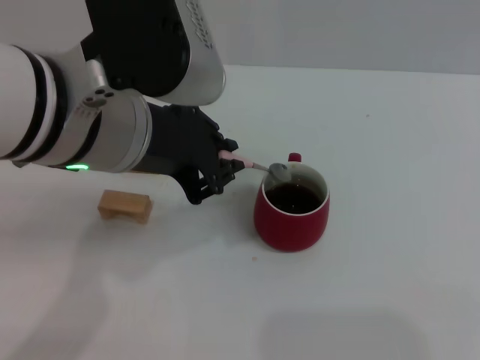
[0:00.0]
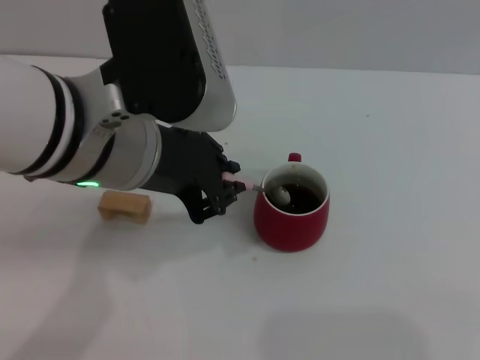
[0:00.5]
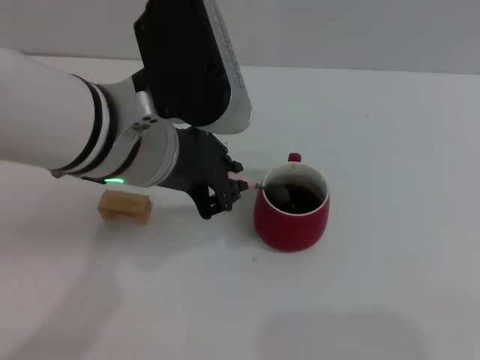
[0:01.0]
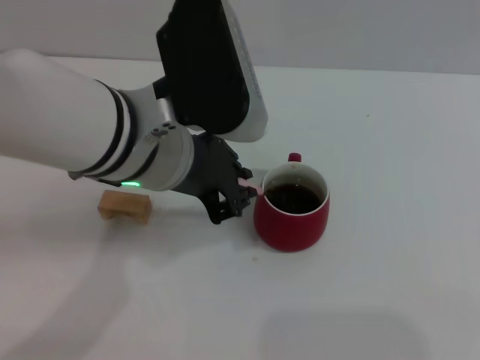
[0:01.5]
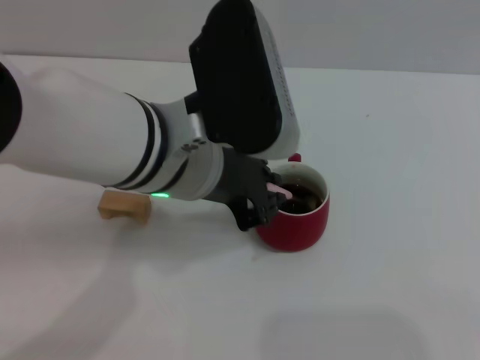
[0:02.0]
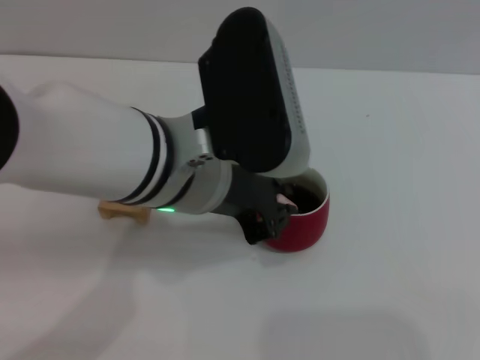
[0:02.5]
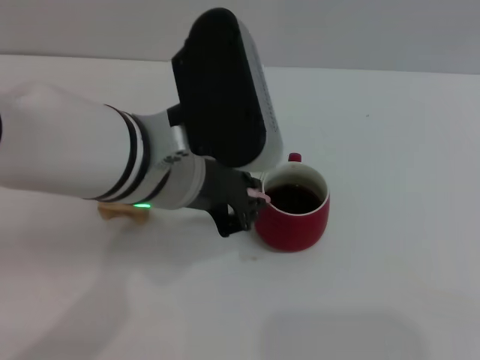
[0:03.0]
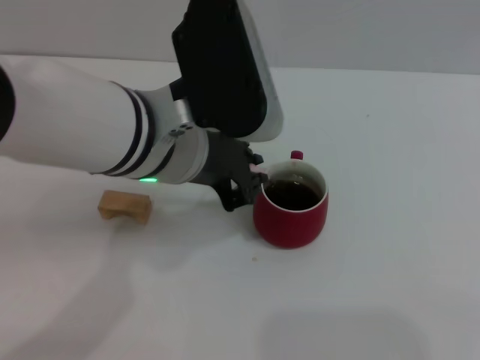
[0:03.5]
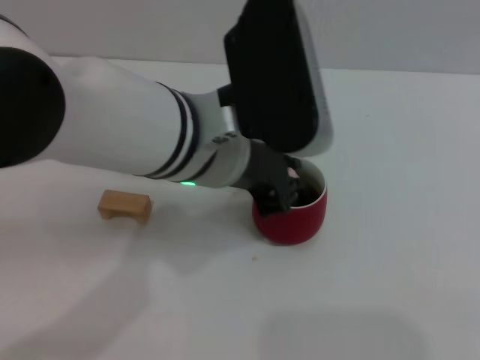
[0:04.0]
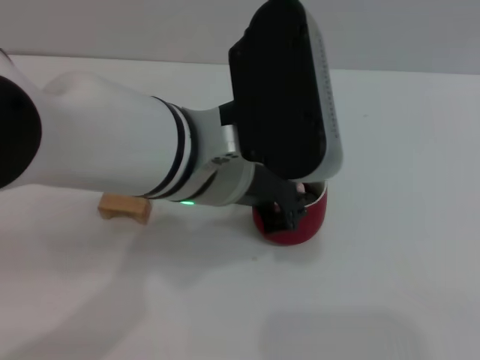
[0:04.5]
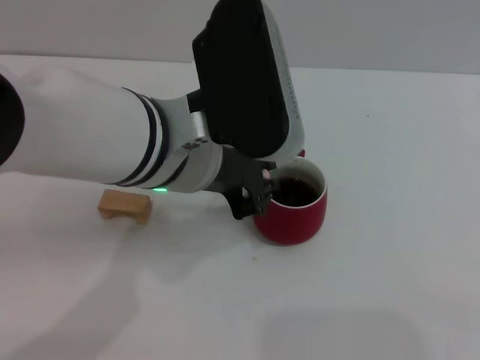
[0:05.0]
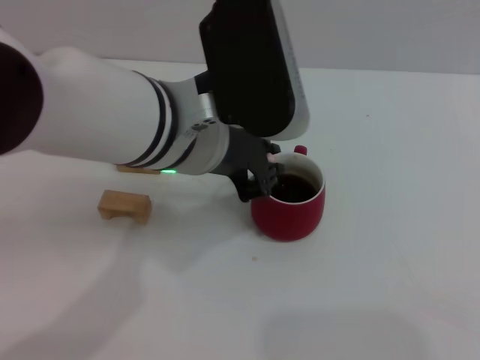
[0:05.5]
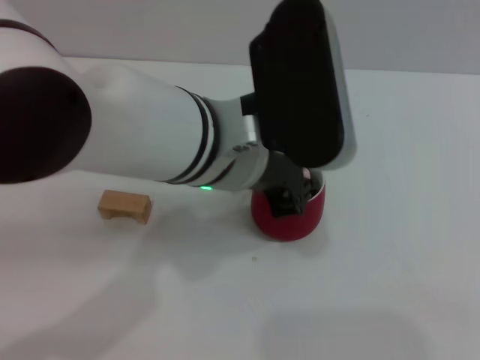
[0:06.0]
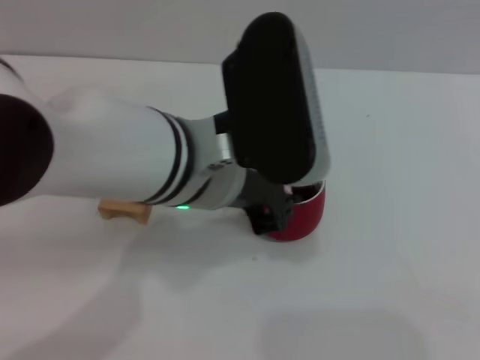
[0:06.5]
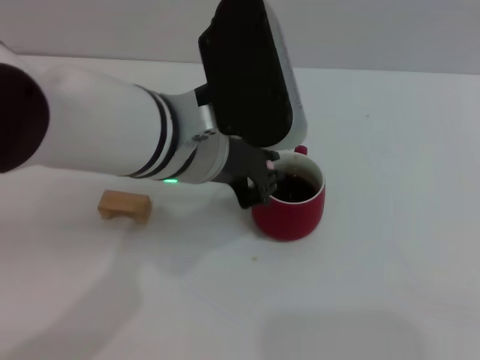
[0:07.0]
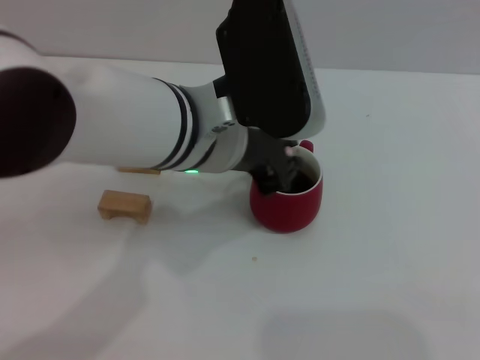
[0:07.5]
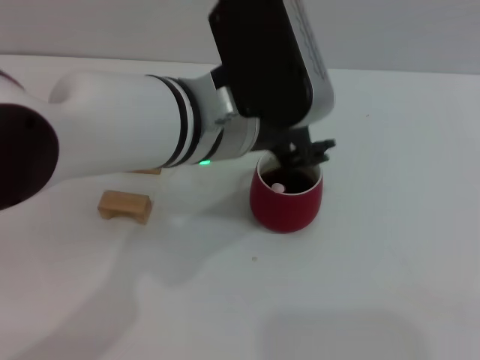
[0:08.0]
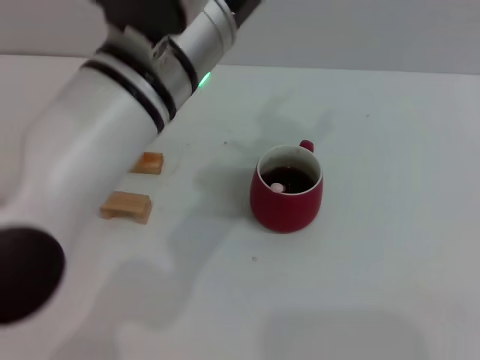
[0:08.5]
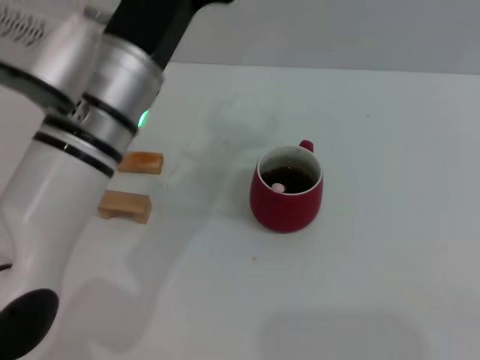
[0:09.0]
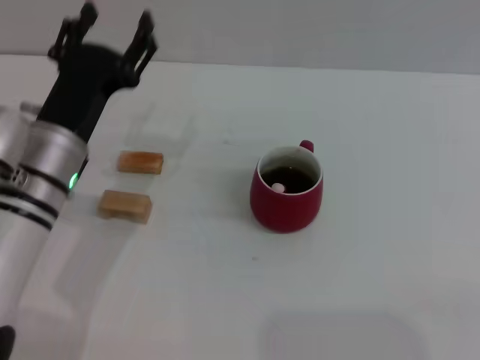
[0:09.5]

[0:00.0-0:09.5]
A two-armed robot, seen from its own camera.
Task of the whole recording: Move the red cup to the center, lift the pink spoon, stir it three times in the cup, and put the spoon into the cup.
Step, 0:00.0 to 0:08.0: Stir the coffee in the cup with the left gripper.
0:00.0 to 0:02.0: The left gripper shifts by some 5 cm.
0:02.0 to 0:07.5: There are only small adjustments of the grippers.
0:07.5 to 0:09.5: The left gripper moves to the left and downward, about 15 cm, and opens.

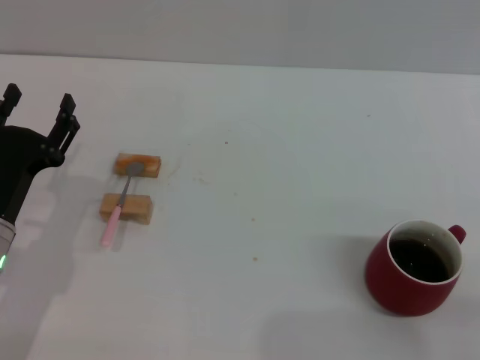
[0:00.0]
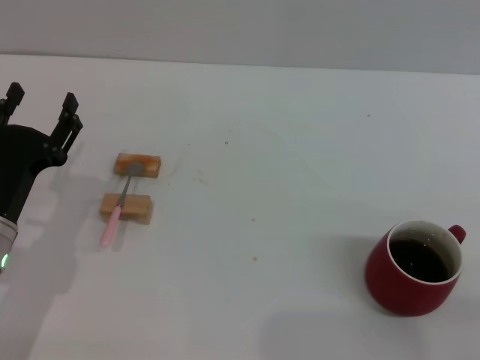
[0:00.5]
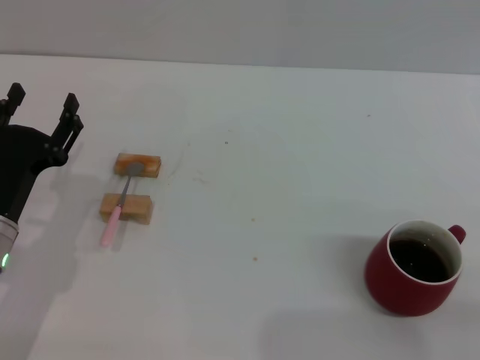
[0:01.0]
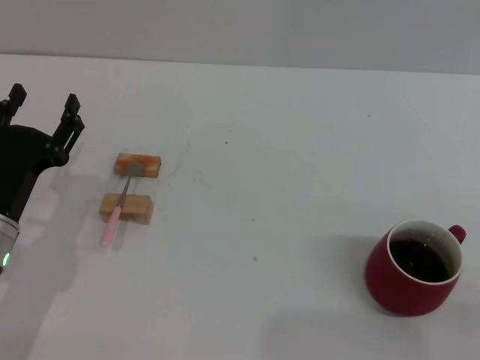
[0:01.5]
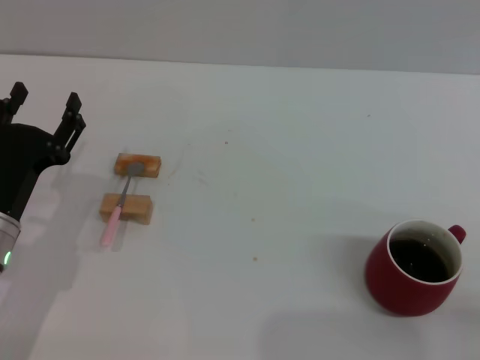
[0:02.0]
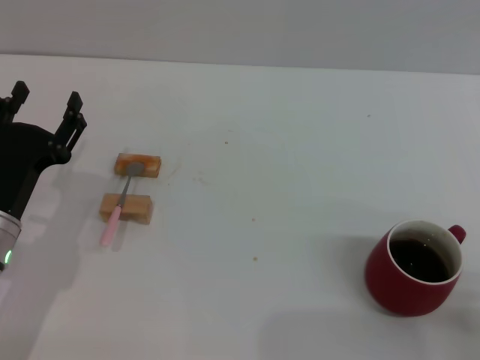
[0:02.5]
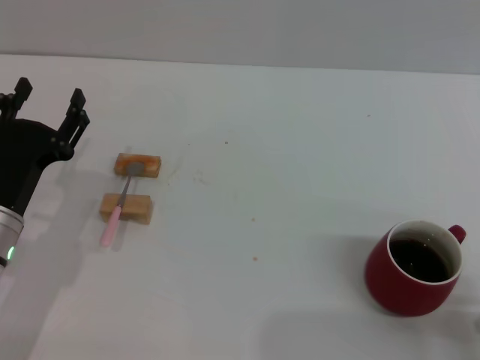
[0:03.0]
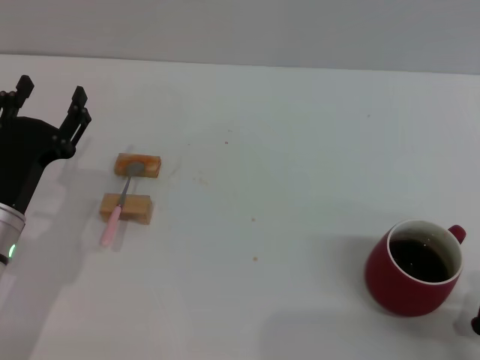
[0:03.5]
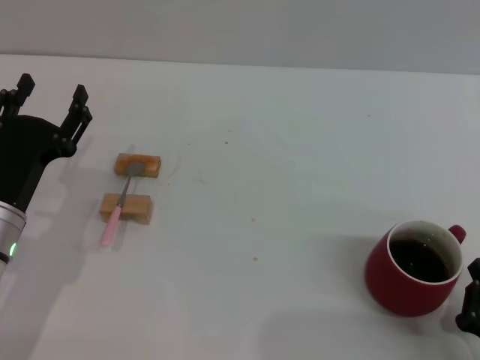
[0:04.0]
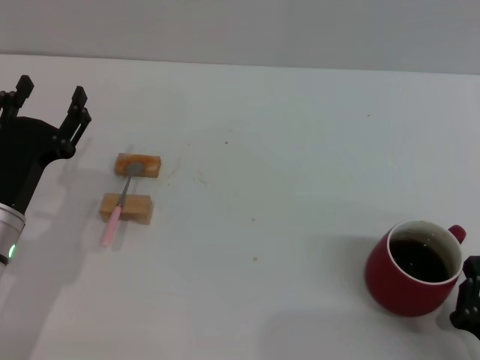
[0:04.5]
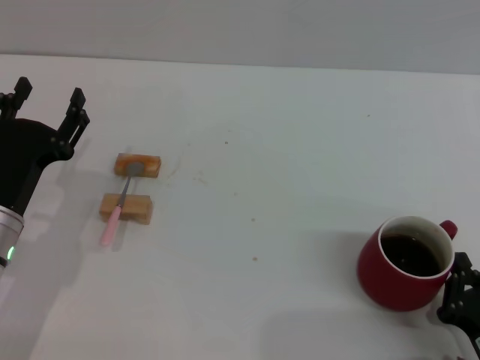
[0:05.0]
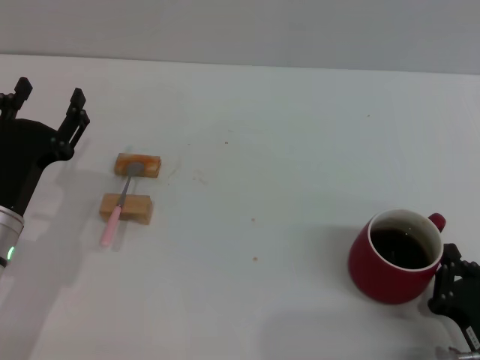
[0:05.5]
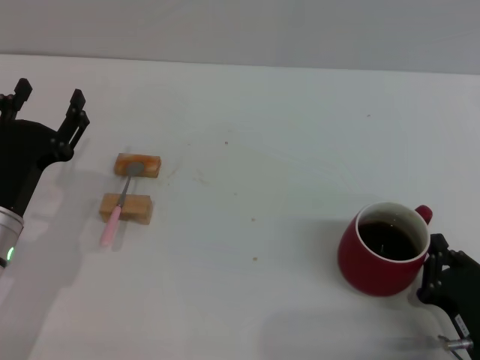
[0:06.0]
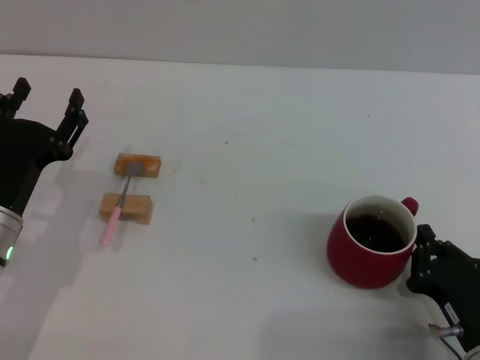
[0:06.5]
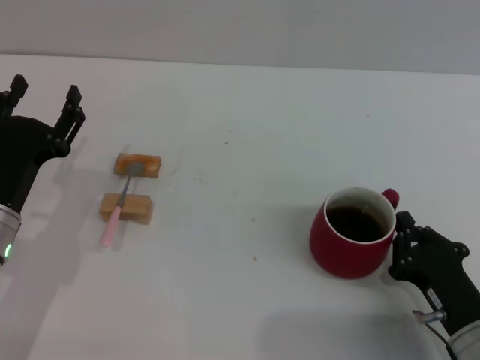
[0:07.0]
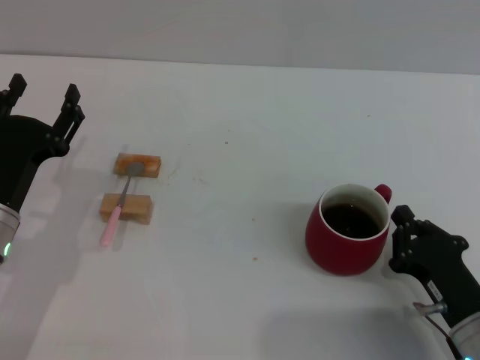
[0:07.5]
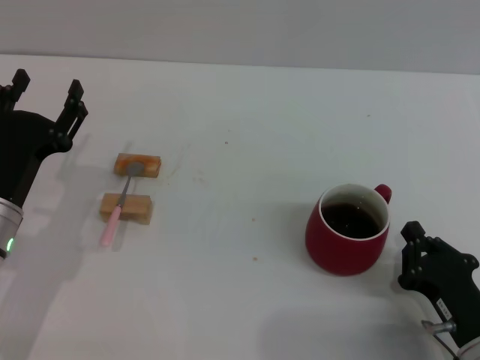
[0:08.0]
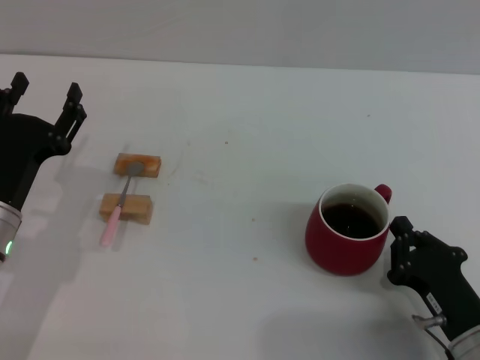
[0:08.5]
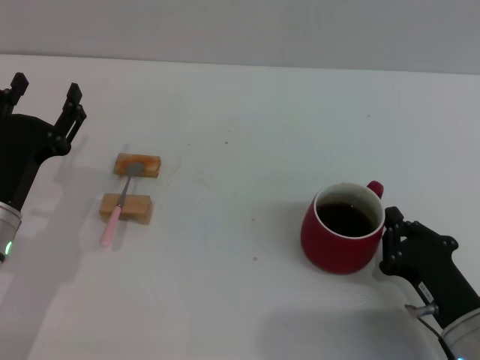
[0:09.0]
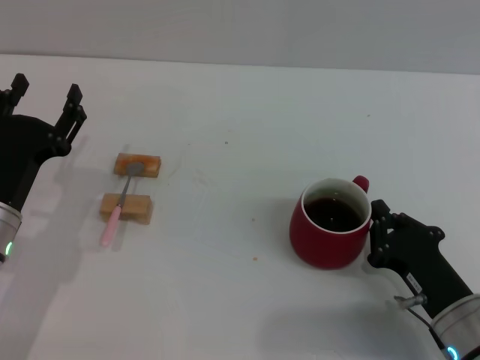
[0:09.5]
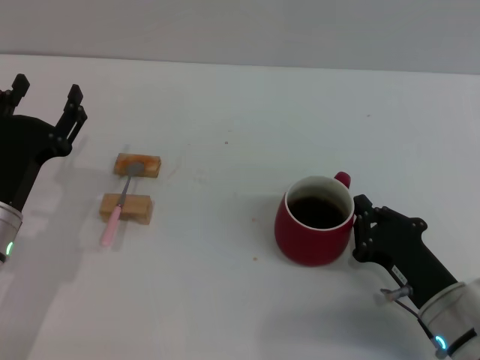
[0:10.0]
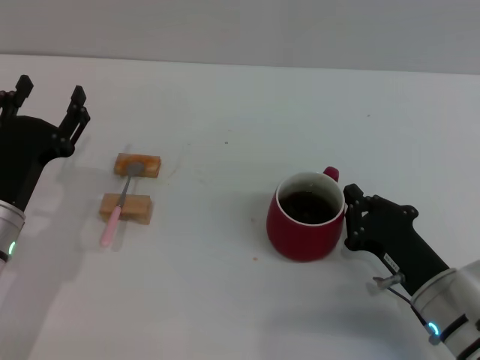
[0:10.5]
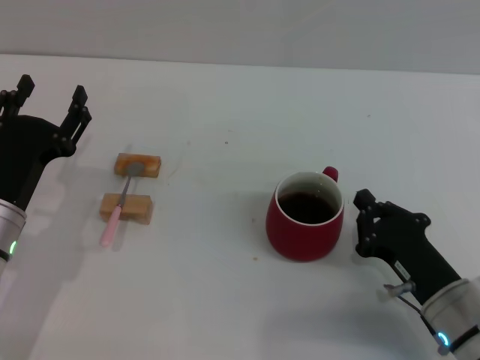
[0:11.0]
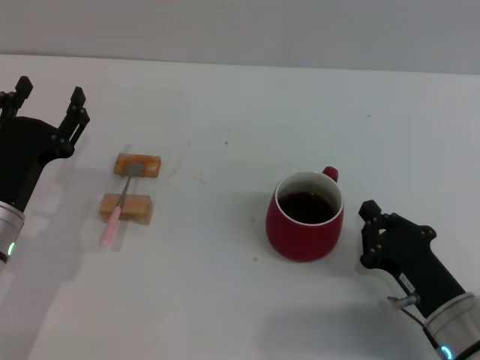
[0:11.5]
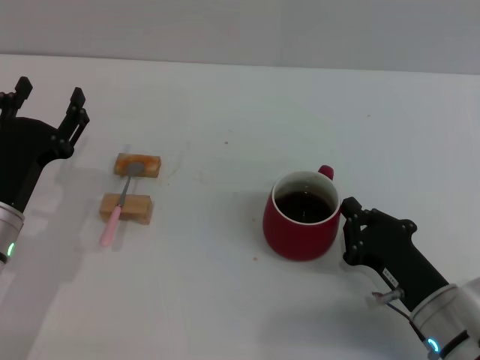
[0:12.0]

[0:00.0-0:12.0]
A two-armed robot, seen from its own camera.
Task of the whole recording: Move the red cup to the center, lift the pink spoon, stir it three times in the cup, and put the spoon into the cup.
0:02.0 to 0:04.0: The right gripper moves to the left, some 5 cm.
0:04.0 to 0:06.0: The grippers stay close to where they were, moving slightly.
0:06.0 to 0:08.0: The grippers make only small movements.
0:08.0 to 0:10.0: The grippers move only a little.
0:10.0 to 0:12.0: There are only small adjustments of the grippers.

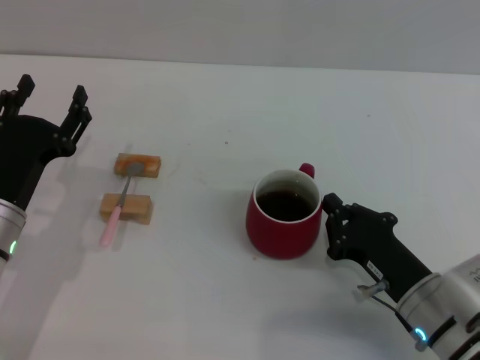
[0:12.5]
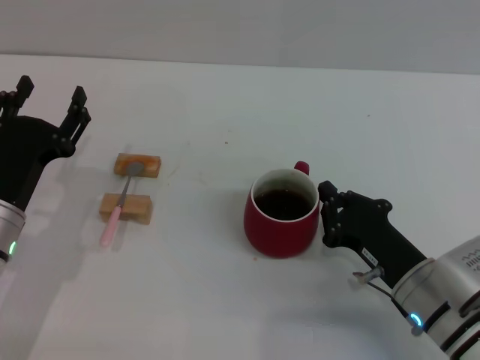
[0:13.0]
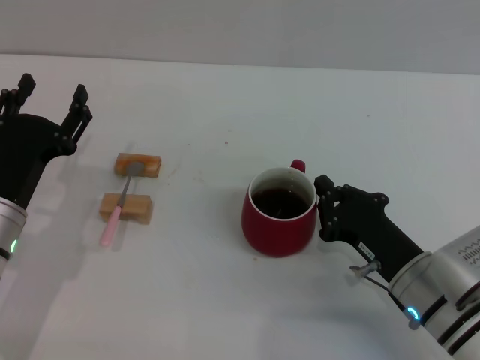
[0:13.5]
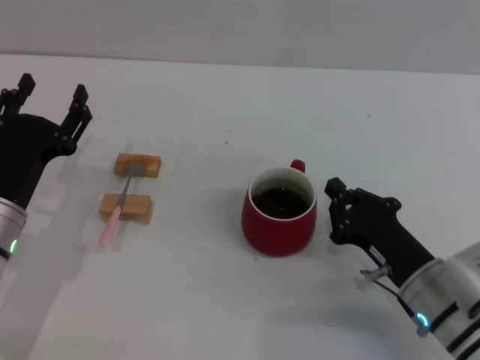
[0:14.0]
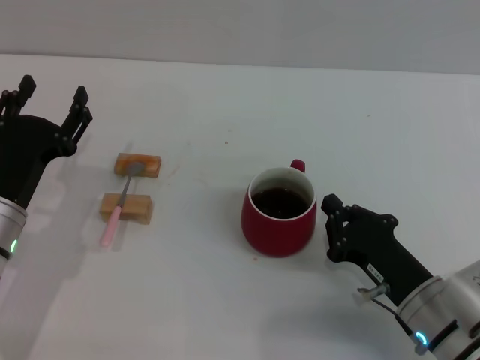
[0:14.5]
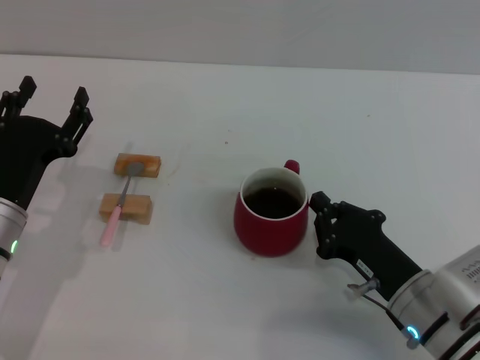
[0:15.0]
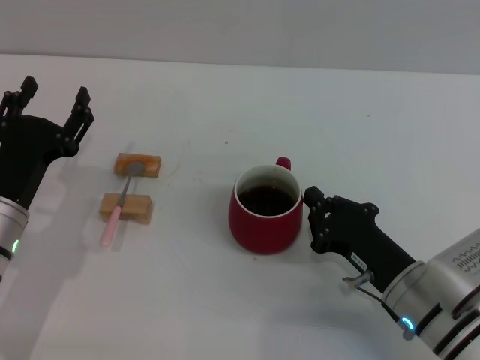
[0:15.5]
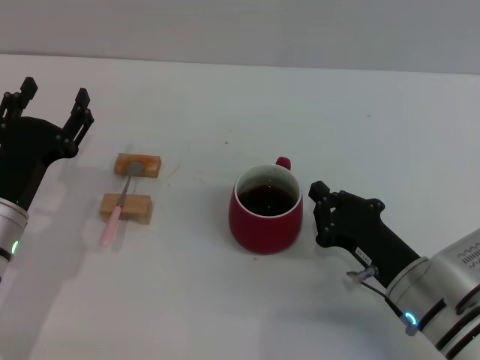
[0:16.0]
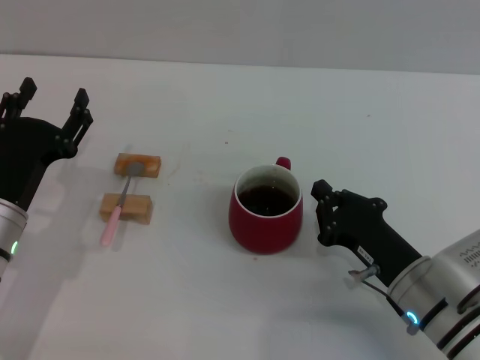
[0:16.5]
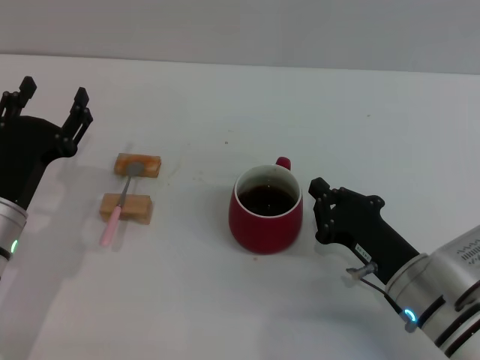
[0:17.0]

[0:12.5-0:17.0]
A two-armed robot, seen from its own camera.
Task of the whole recording: Move the red cup to the center, lift the pink spoon, stir it three times in the cup, and put the spoon into the cup.
Step, 0:12.5 to 0:16.0: Move the cup with coffee to the center of view with the right gripper.
0:12.5 to 0:17.0: The grippers stay close to where they were, moving slightly.
